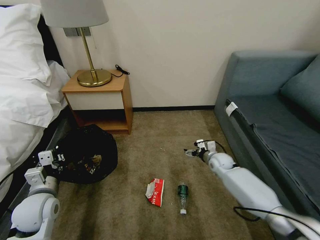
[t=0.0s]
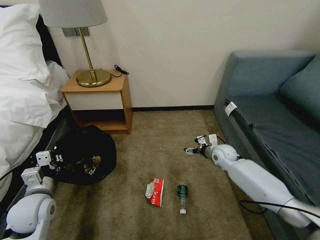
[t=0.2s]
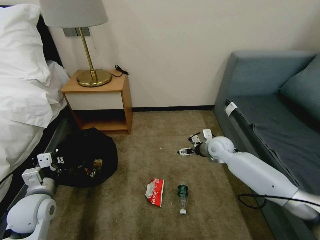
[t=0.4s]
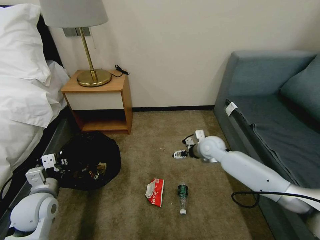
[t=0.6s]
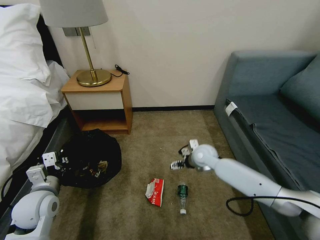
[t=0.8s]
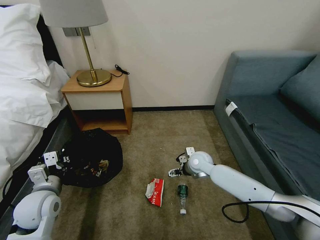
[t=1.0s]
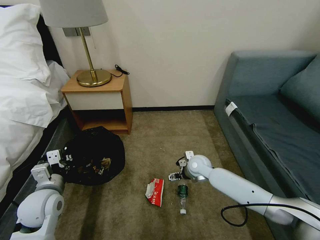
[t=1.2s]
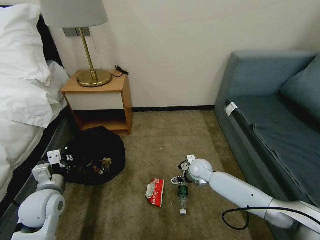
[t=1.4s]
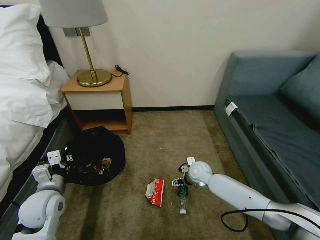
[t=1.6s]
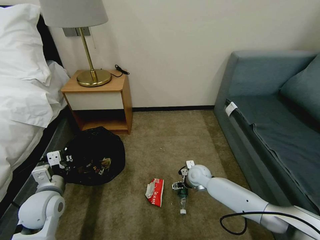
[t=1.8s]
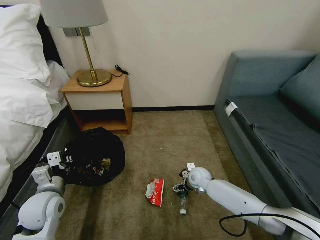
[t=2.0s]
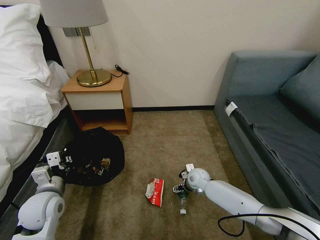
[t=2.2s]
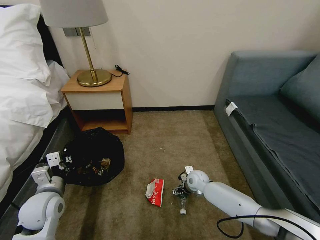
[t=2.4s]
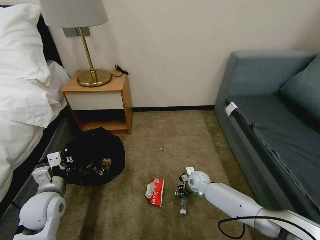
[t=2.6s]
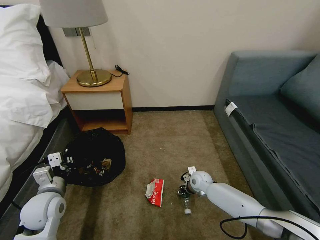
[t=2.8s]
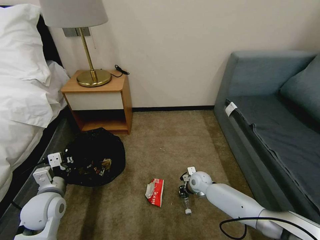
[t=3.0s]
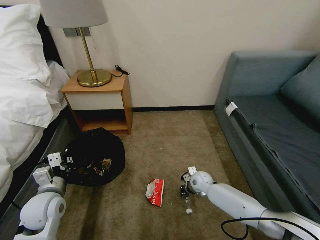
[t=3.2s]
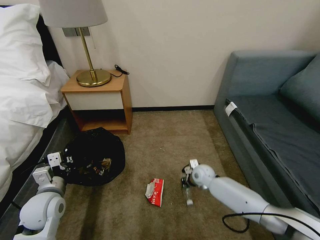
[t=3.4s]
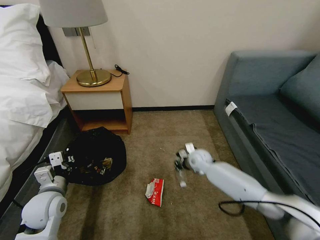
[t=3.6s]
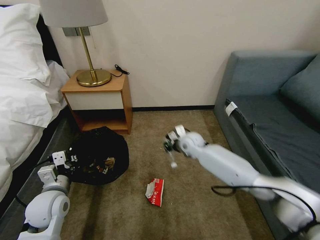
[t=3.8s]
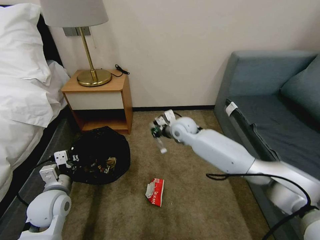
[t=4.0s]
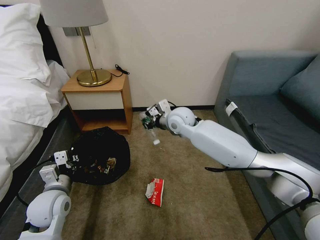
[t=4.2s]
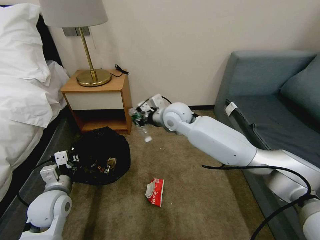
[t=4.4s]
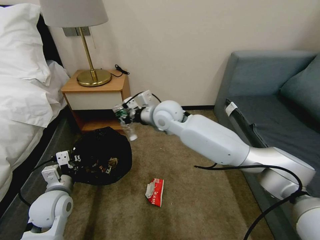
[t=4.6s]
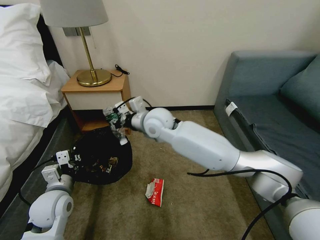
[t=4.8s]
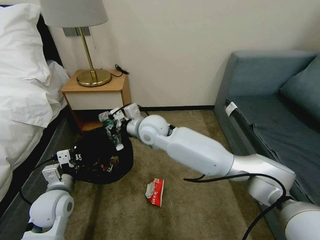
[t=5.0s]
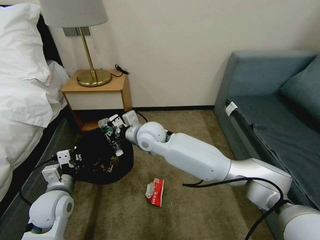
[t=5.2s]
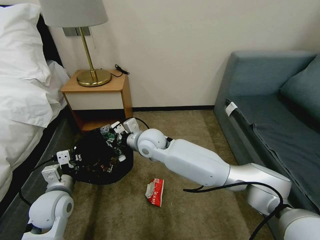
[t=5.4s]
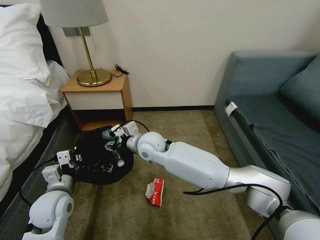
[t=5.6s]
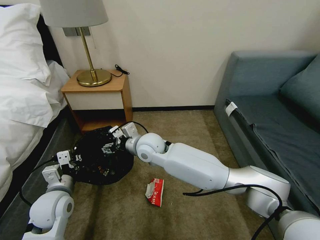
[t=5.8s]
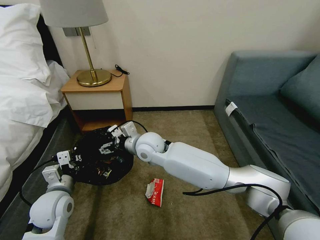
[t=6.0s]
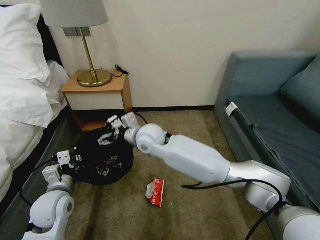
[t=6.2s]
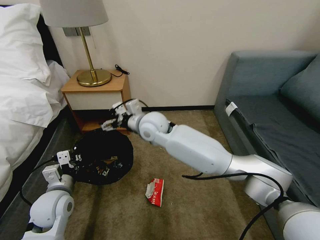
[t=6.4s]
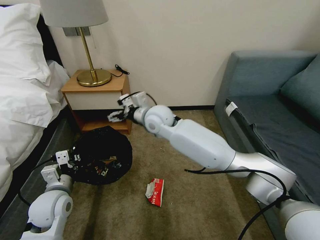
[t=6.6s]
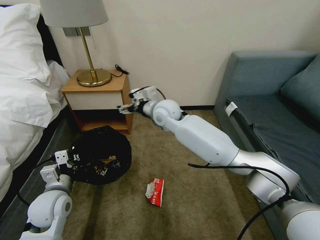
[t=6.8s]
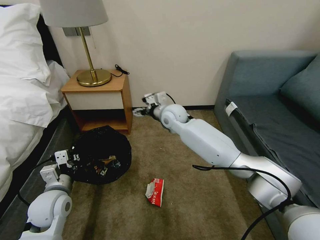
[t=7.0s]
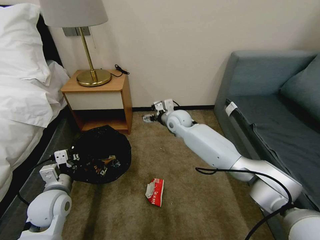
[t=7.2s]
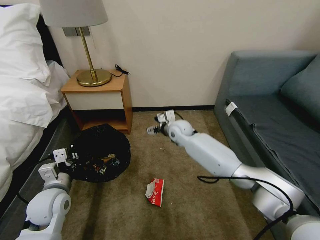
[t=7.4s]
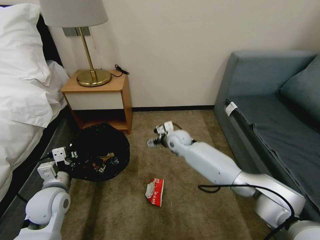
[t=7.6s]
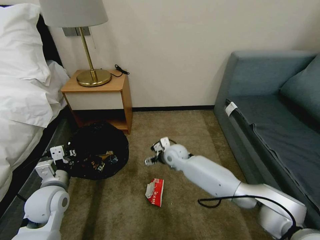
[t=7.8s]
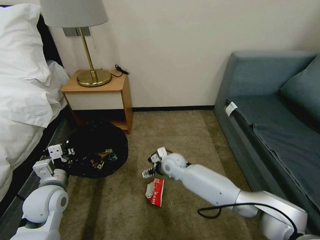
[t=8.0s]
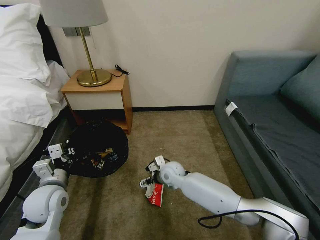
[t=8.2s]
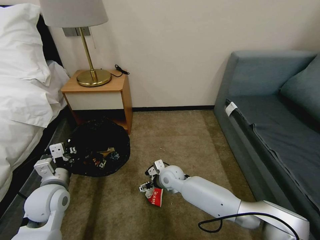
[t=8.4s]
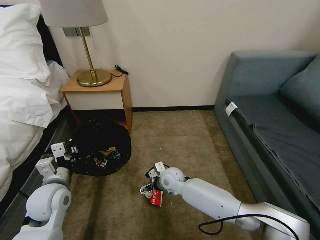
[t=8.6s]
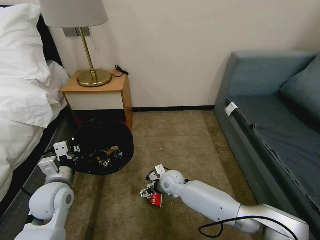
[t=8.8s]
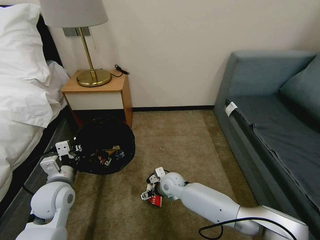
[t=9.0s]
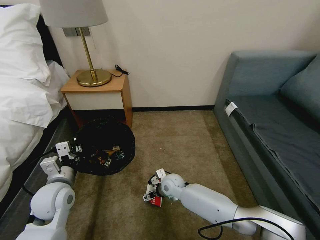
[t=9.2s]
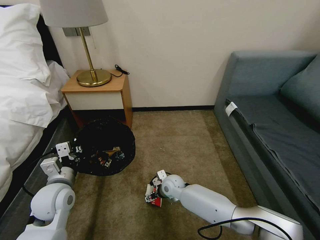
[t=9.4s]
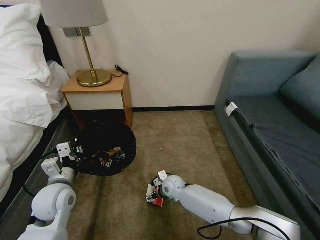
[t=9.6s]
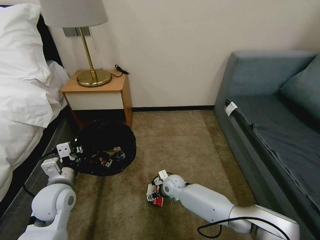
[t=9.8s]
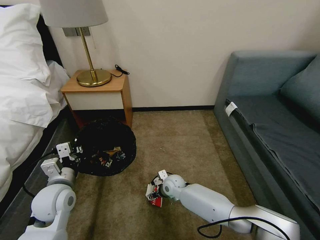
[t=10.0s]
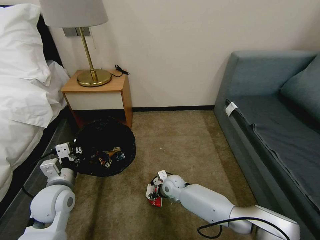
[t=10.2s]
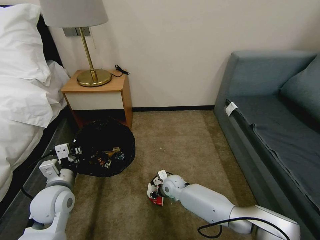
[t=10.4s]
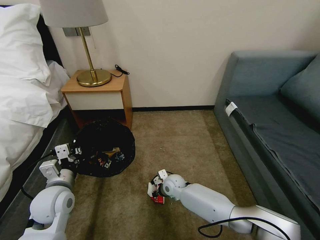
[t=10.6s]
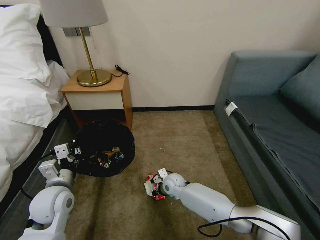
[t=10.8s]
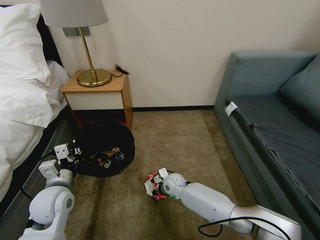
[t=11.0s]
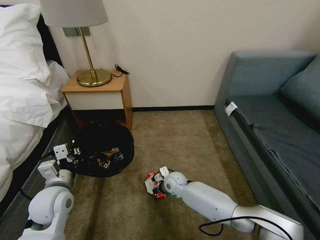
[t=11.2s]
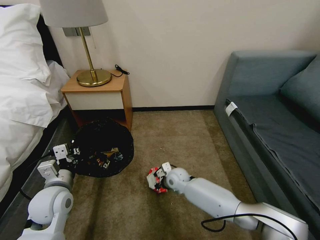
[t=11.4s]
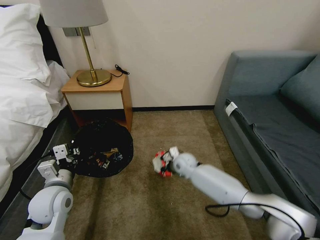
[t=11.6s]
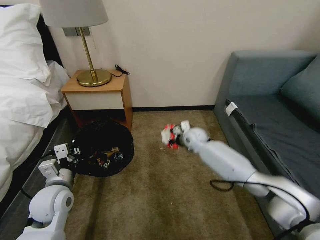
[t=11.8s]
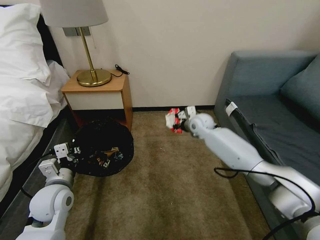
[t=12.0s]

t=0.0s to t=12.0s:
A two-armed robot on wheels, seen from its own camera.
Task of the whole recording: Pick up the trash bin, then pick up the garbage on the floor and place it into the trash bin.
t=0.0s to t=1.6s: The right gripper heads to the left, covering about 10 cm, and goes upward and returns, about 10 cm each way.
t=1.6s to t=3.0s: The right gripper goes approximately 5 cm downward, and closes up.
t=3.0s to t=4.4s: The right gripper goes approximately 35 cm upward and to the left.
t=4.4s to t=6.0s: The right gripper is displaced to the left, downward and backward by some 15 cm, and opens.
t=6.0s to t=7.6s: The right gripper heads to the right, downward and forward, covering some 20 cm.
t=7.6s to t=9.0s: The right gripper travels backward and downward by about 15 cm.
t=9.0s to t=10.4s: The right gripper closes its fingers.
t=10.4s to t=12.0s: The right gripper heads upward, forward and to the right, covering roughly 30 cm.

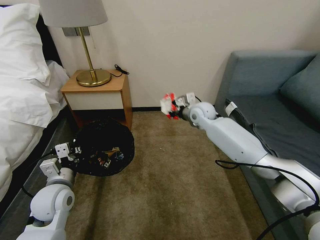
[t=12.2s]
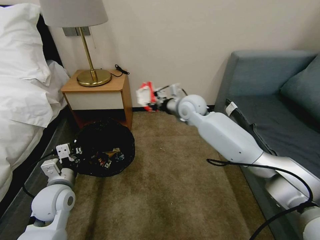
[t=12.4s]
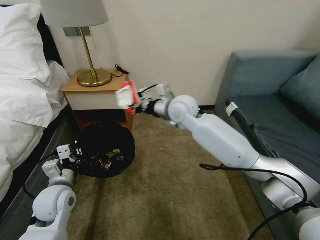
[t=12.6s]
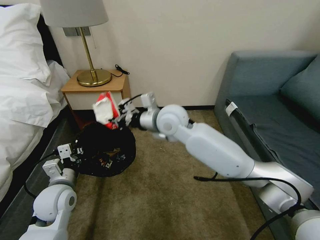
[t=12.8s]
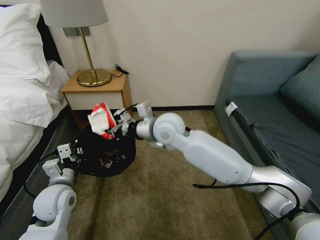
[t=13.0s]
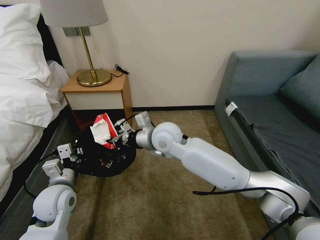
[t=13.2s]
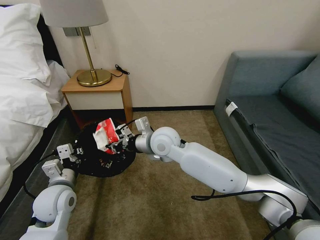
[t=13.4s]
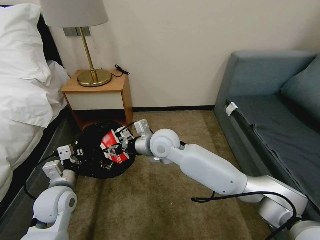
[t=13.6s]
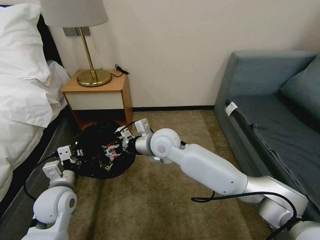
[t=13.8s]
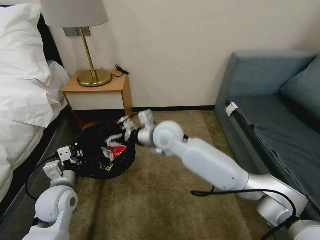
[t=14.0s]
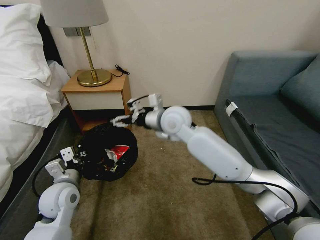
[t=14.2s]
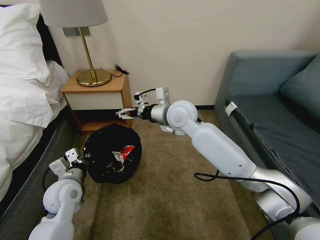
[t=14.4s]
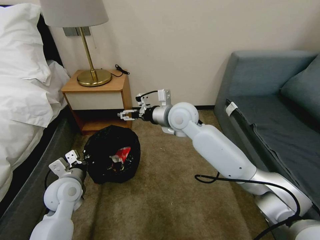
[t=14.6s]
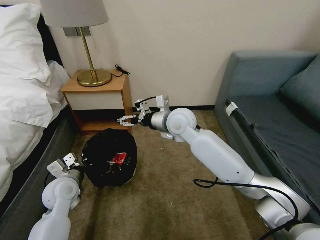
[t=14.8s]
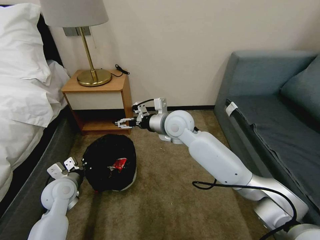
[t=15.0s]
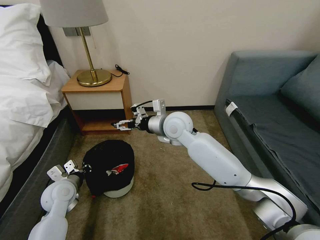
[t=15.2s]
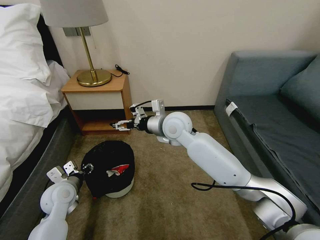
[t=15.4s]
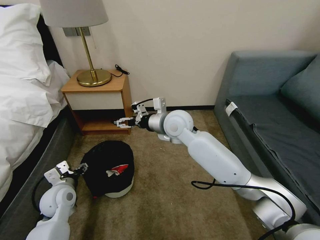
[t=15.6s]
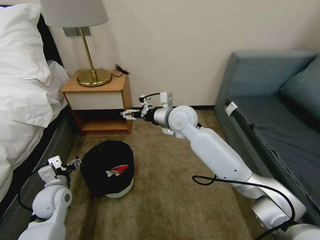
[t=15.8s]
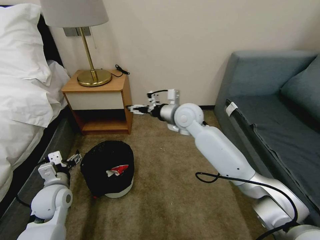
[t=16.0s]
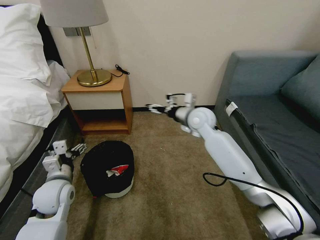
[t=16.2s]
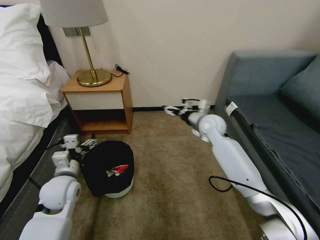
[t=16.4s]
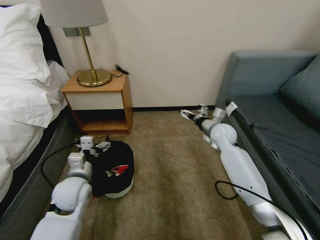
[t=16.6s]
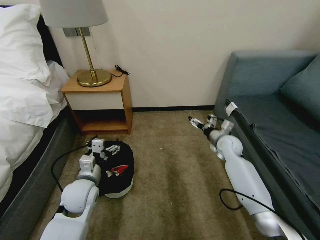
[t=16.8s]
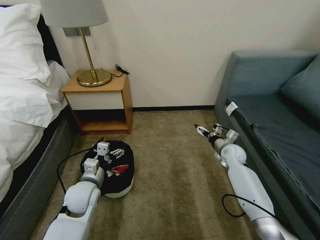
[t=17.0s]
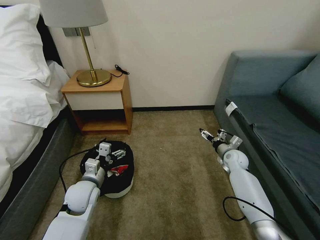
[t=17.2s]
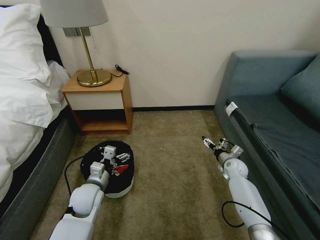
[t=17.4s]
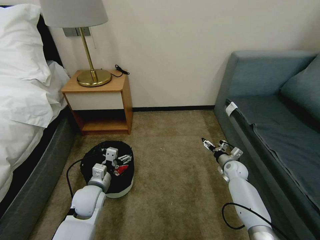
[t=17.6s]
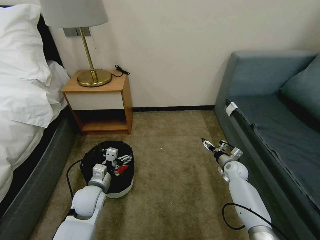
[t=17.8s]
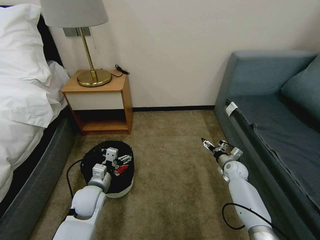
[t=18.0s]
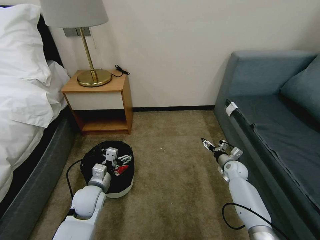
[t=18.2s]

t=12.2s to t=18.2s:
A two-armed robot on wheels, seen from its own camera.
Task of the whole recording: Pick up the trash bin, then pick up the garbage on the floor and place it into the trash bin.
t=12.2s to t=13.8s: The right gripper shifts roughly 20 cm backward and to the left, and opens up.
t=13.8s to t=15.2s: The left gripper shifts by some 5 cm. Meanwhile the right gripper changes place by about 5 cm, and opens.
t=15.2s to t=16.6s: The left gripper goes about 5 cm to the right, and opens up. Meanwhile the right gripper shifts about 25 cm to the right and downward.
t=16.6s to t=18.2s: The left gripper is displaced downward by some 5 cm. Meanwhile the right gripper is displaced downward and to the right by about 20 cm.
